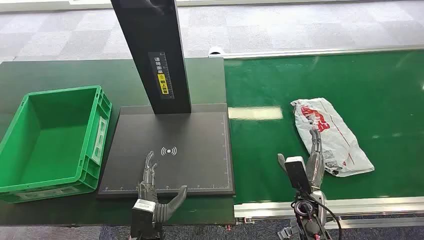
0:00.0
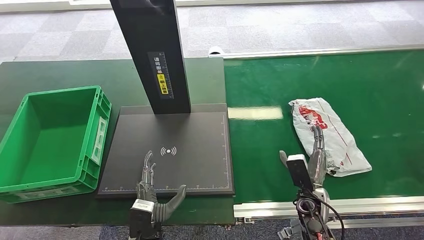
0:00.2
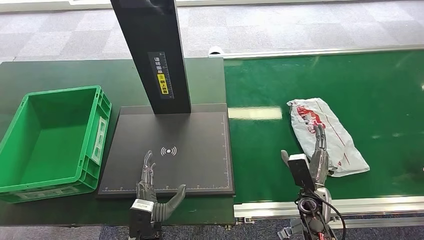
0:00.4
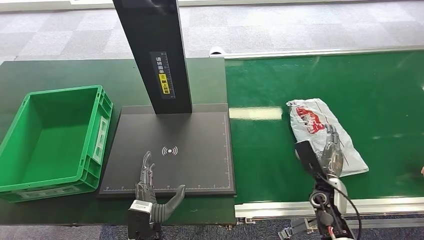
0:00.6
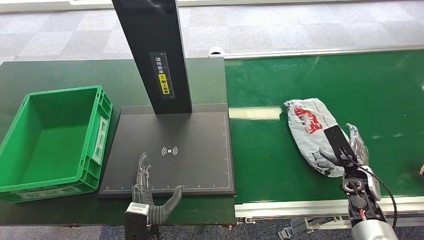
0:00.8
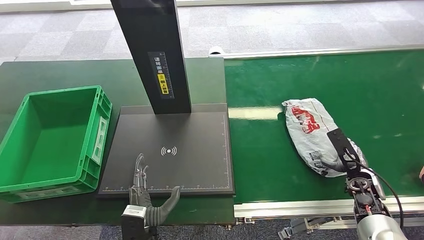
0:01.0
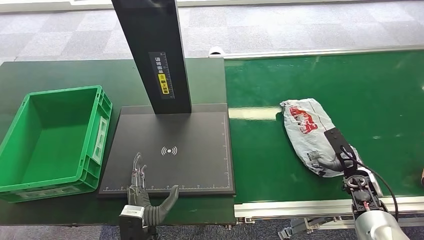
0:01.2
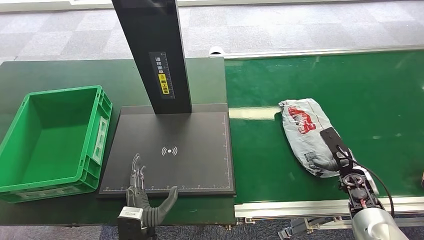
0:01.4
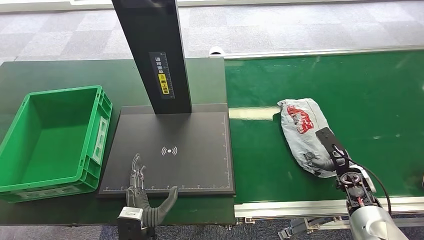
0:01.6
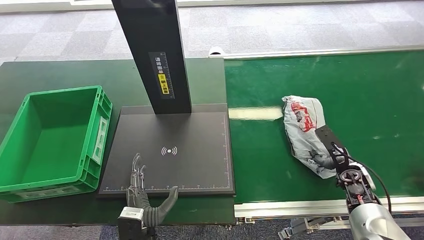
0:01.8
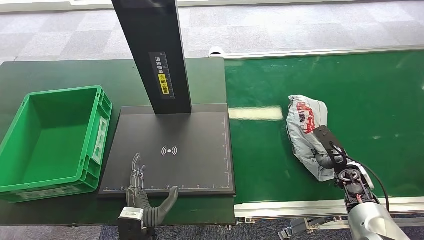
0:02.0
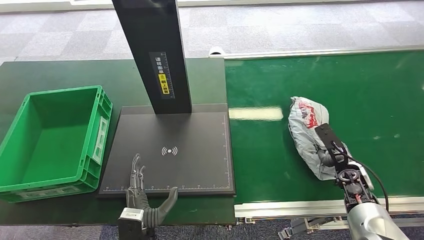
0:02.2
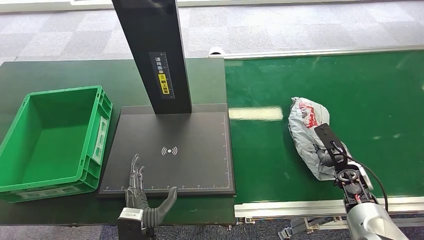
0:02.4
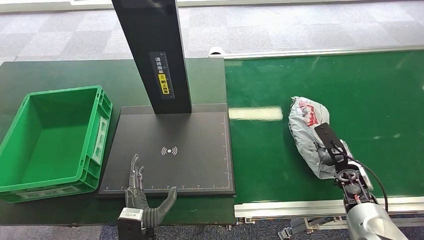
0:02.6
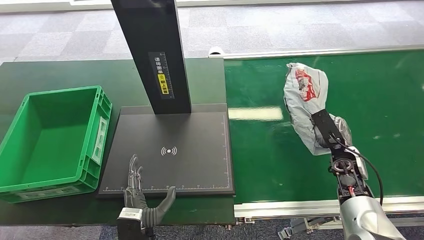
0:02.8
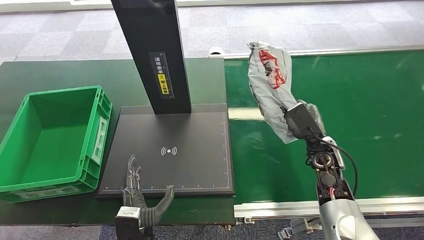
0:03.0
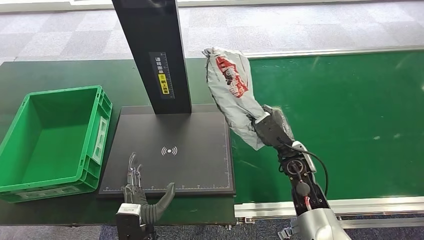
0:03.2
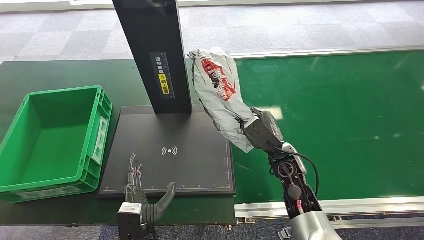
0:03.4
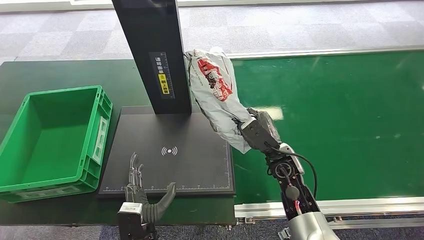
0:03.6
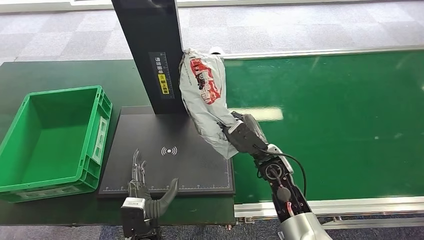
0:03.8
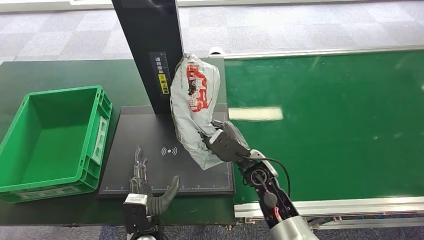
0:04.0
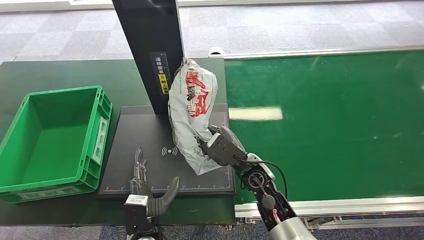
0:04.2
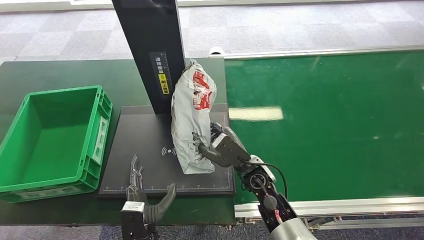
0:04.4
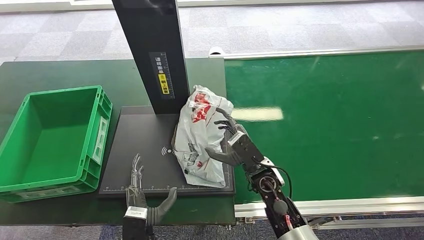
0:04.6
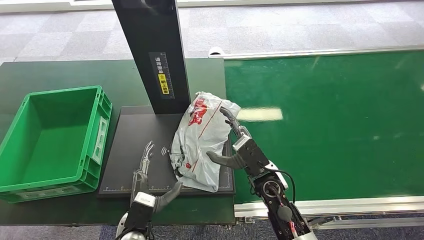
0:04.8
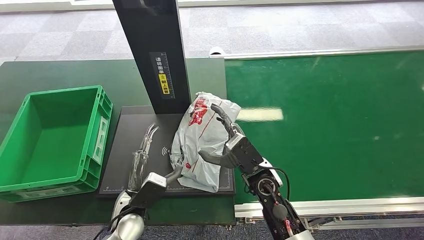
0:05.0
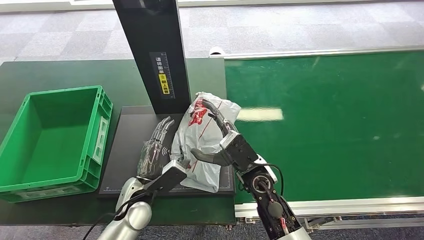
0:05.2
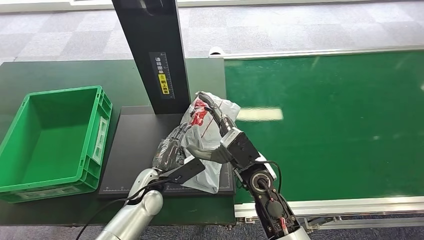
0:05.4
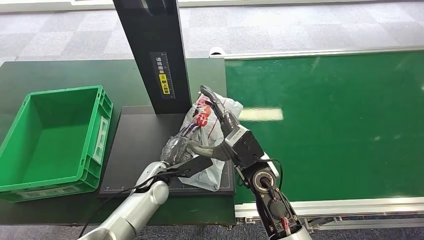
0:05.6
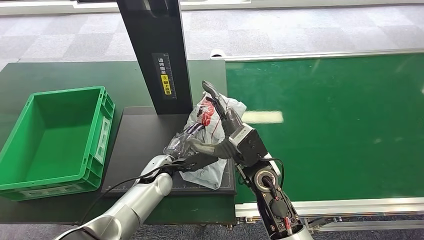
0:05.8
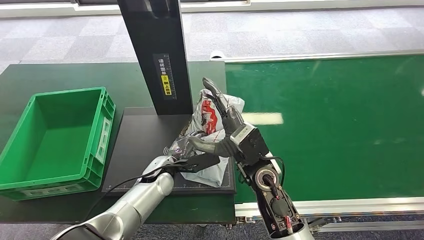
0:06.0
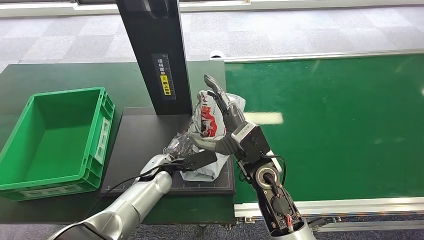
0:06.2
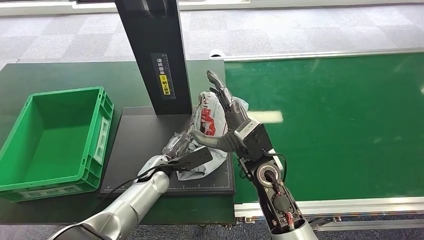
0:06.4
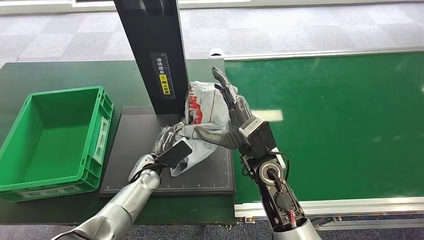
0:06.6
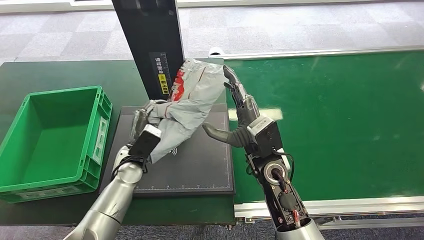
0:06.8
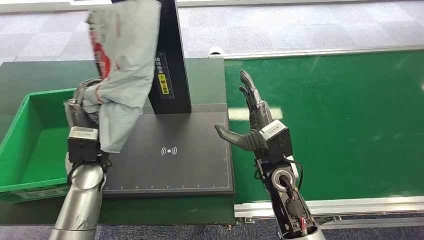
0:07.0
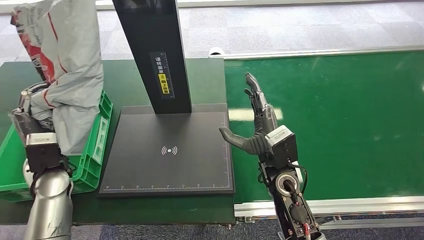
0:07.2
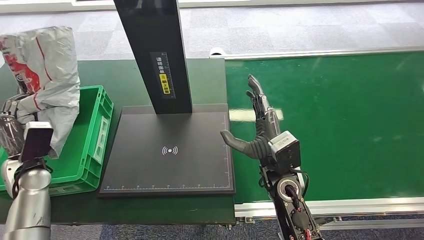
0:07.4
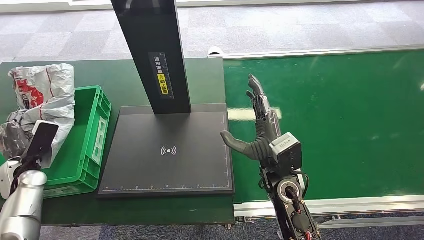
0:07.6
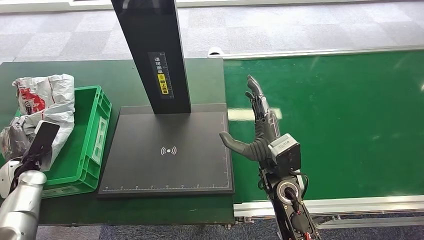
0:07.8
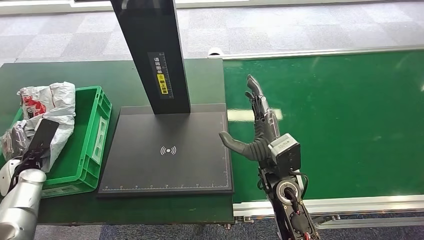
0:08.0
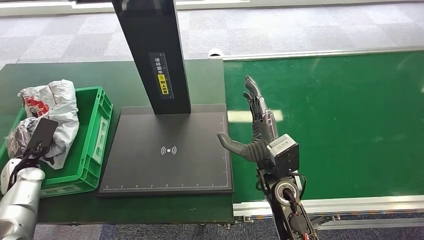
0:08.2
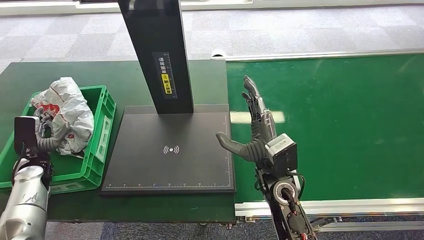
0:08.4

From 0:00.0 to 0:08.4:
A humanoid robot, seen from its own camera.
Step, from 0:00.0 to 0:02.8: Pick up the package from the conveyor belt.
Step, from 0:03.0 to 0:04.6: Place the package onto the inbound machine.
Step, from 0:04.8 to 0:06.6: Pick up the package from the inbound machine.
Step, from 0:07.0 to 0:08.4: Place the package into the parcel locker.
From 0:01.4 to 0:02.8: The right hand changes place by some 5 cm.
From 0:02.8 to 0:04.2: The right hand goes roughly 25 cm to the left.
From 0:04.2 to 0:05.6: The left hand moves forward, some 15 cm; the right hand is displaced upward by some 5 cm.
